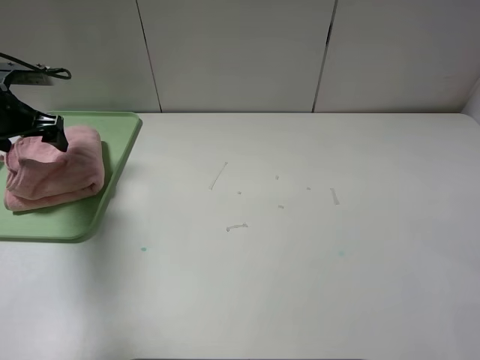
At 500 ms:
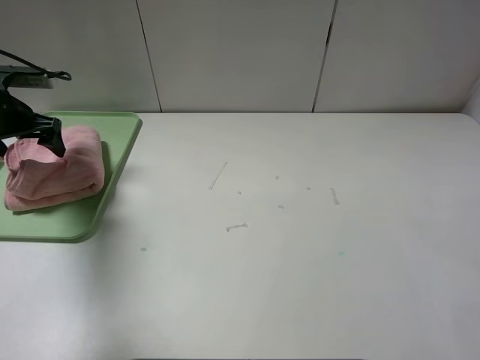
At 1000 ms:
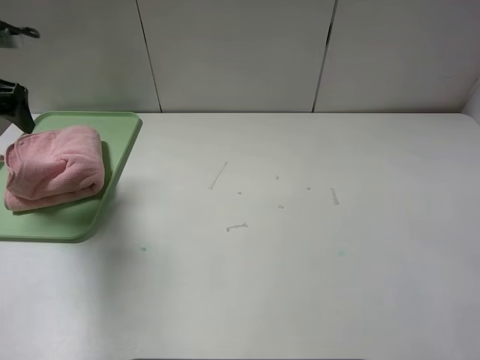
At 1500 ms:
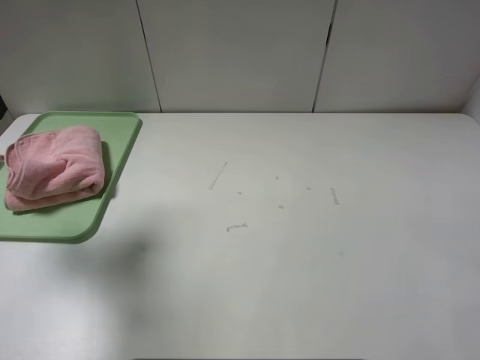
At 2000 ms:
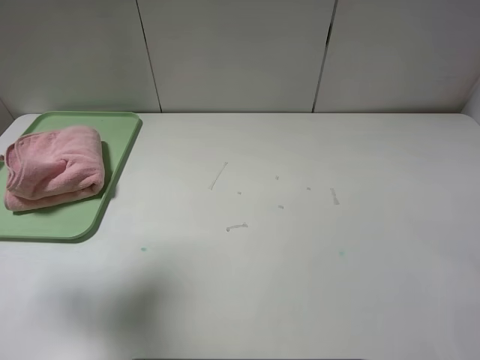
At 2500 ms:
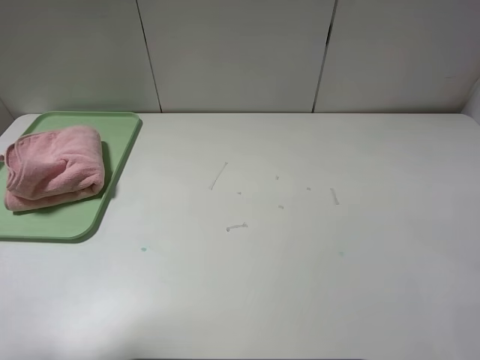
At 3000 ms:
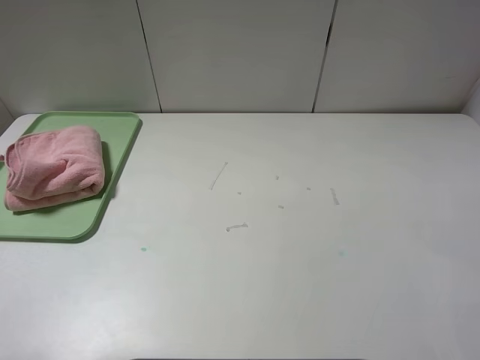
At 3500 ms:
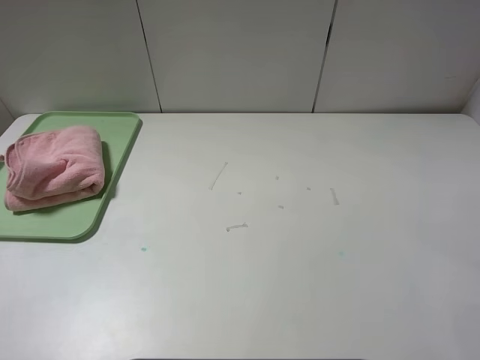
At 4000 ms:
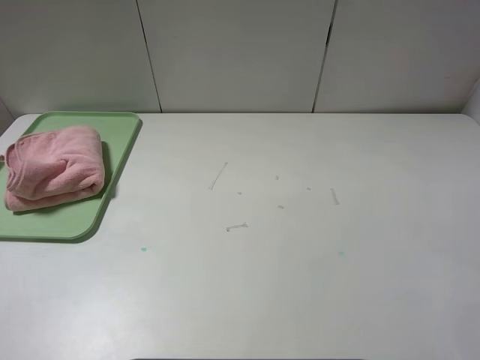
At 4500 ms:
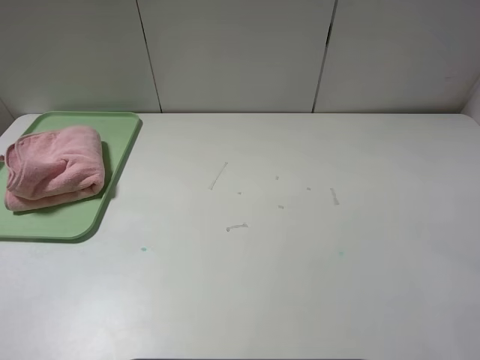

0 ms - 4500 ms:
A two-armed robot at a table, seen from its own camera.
0 ms - 2000 ms: The left gripper shifts about 25 cm upward and backward.
2000 ms - 4500 ms: The left gripper travels backward by about 20 cm.
